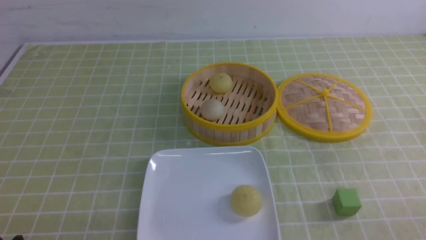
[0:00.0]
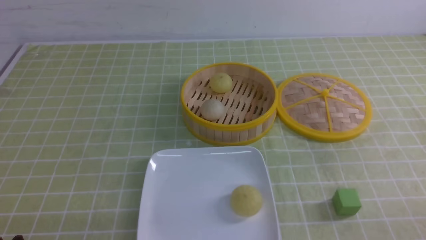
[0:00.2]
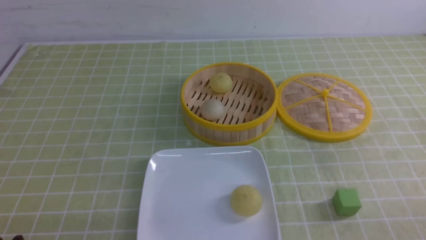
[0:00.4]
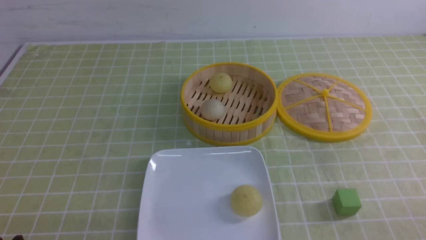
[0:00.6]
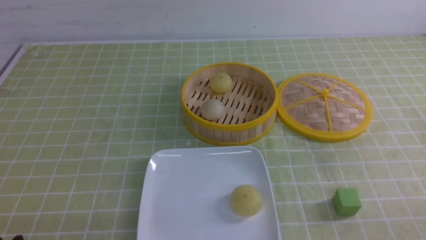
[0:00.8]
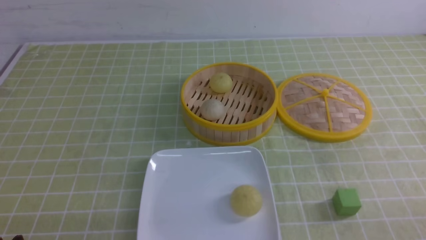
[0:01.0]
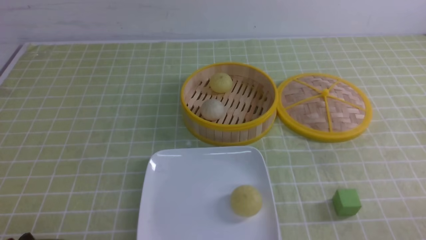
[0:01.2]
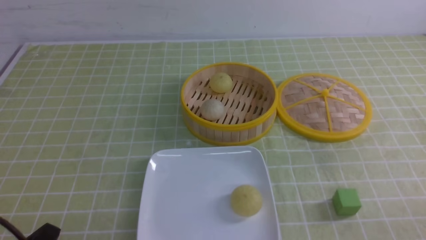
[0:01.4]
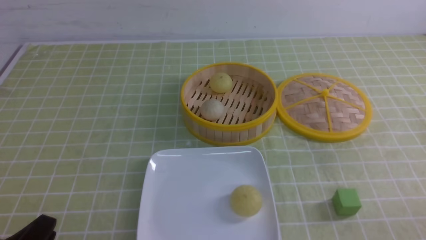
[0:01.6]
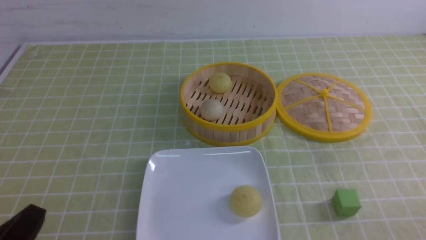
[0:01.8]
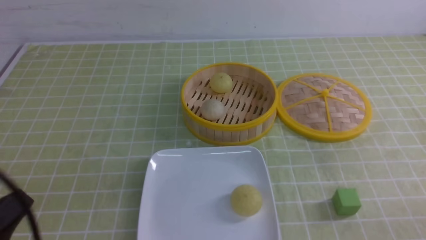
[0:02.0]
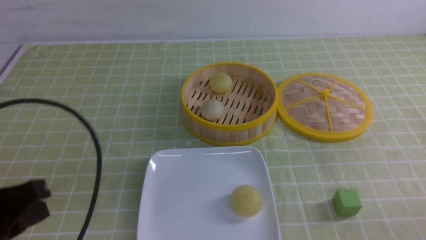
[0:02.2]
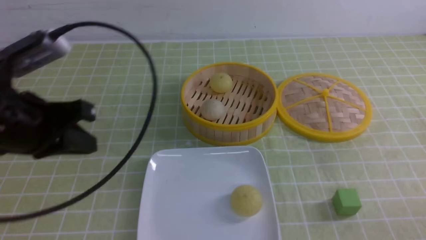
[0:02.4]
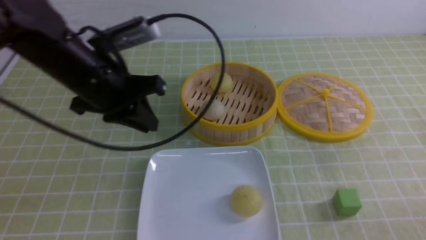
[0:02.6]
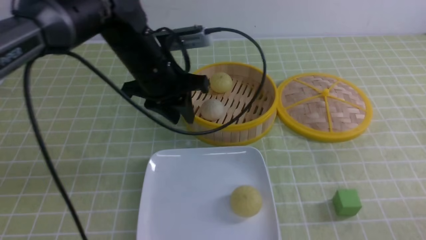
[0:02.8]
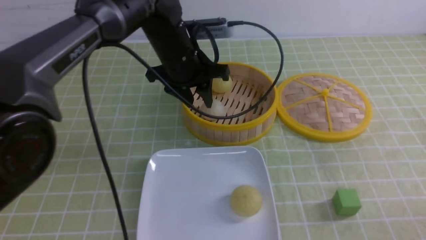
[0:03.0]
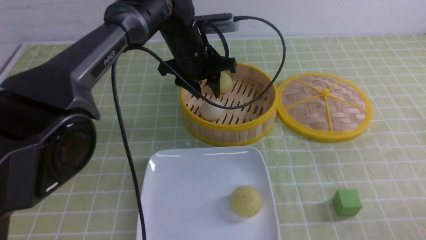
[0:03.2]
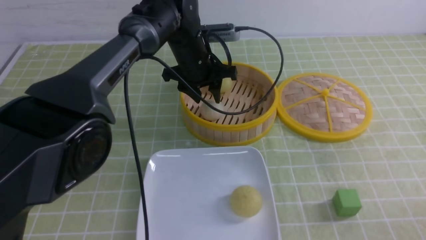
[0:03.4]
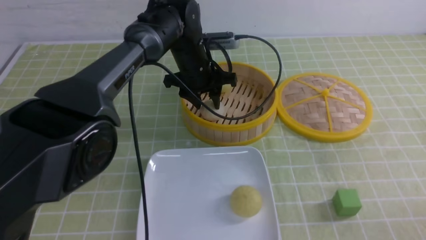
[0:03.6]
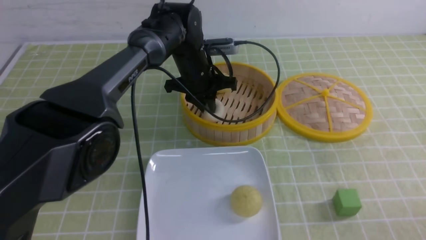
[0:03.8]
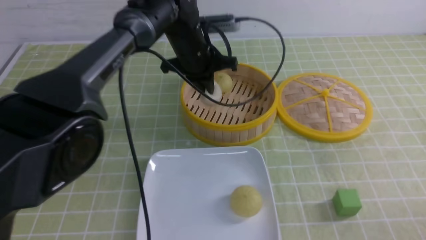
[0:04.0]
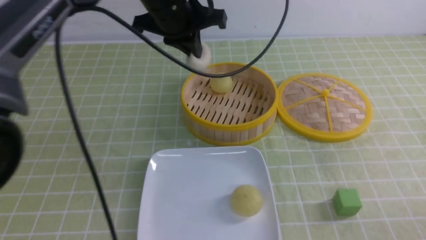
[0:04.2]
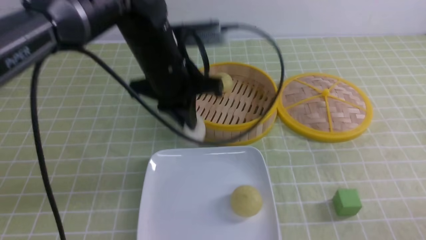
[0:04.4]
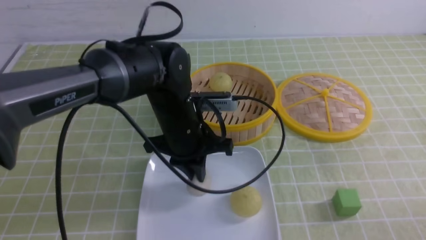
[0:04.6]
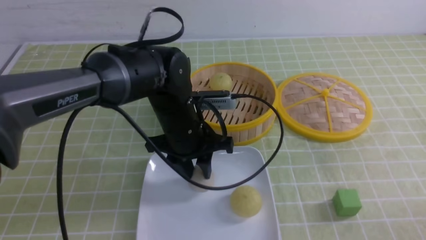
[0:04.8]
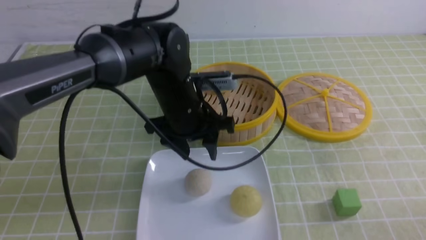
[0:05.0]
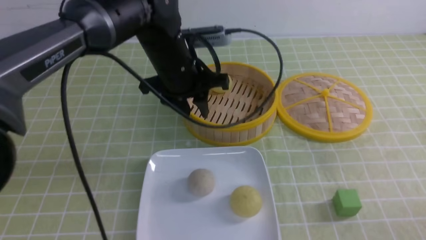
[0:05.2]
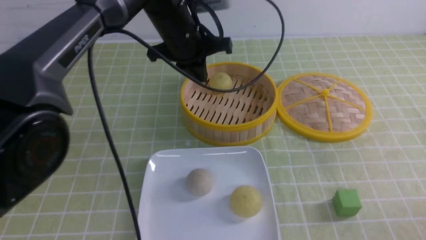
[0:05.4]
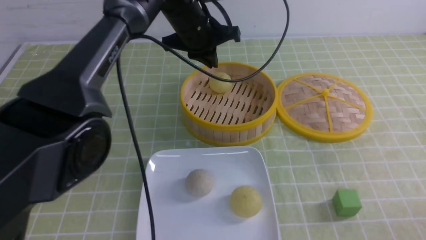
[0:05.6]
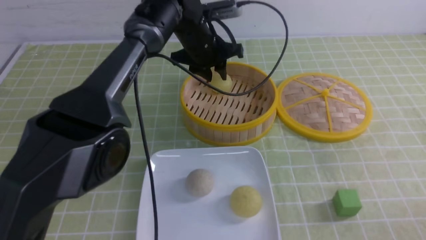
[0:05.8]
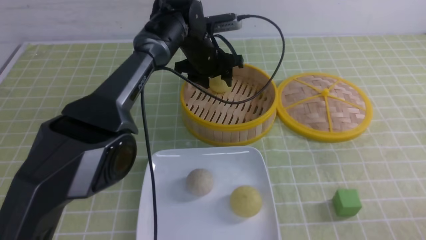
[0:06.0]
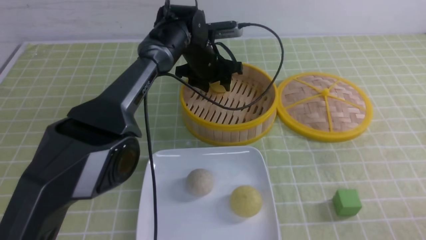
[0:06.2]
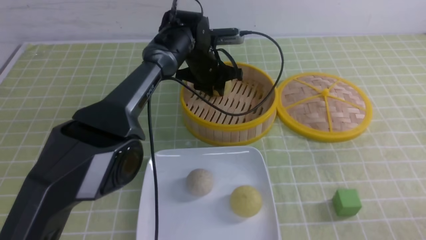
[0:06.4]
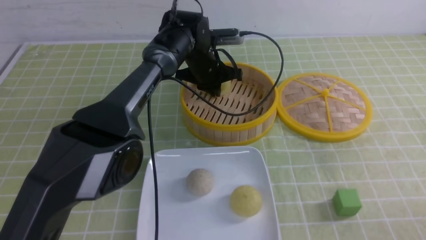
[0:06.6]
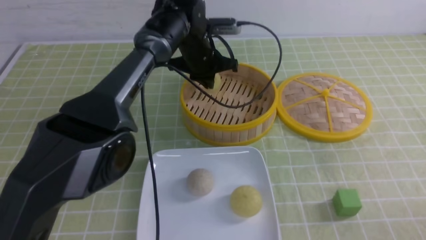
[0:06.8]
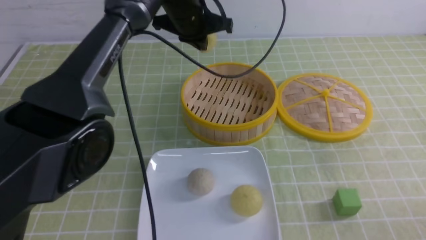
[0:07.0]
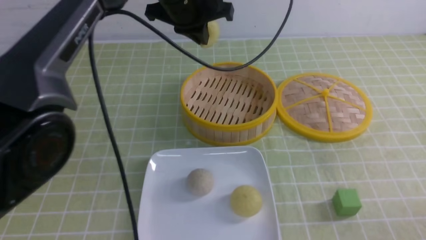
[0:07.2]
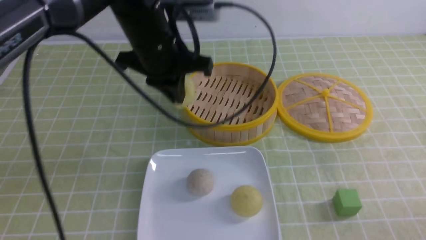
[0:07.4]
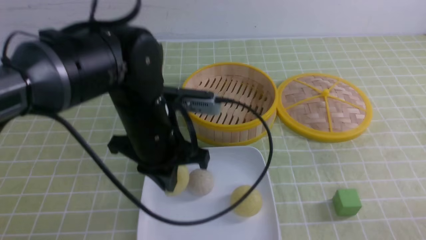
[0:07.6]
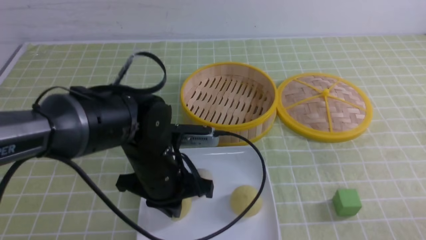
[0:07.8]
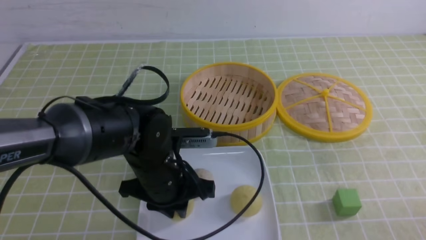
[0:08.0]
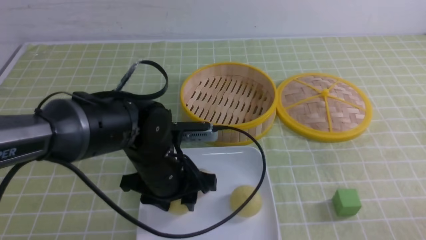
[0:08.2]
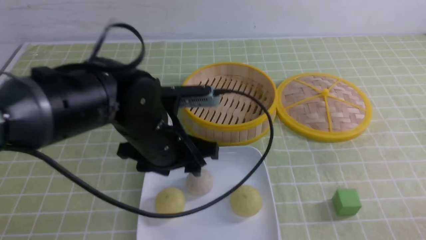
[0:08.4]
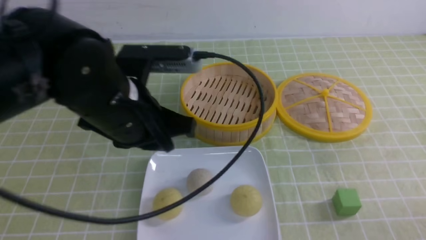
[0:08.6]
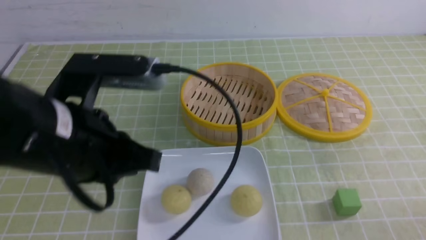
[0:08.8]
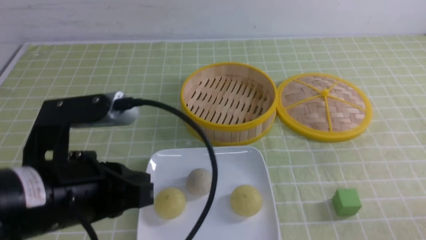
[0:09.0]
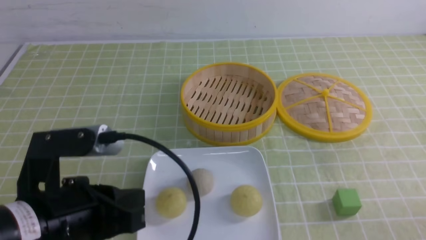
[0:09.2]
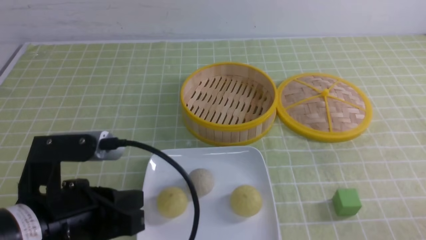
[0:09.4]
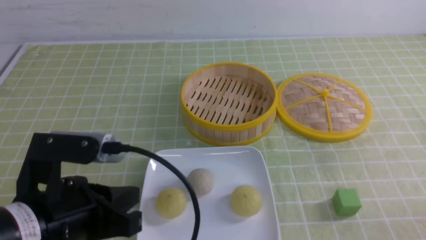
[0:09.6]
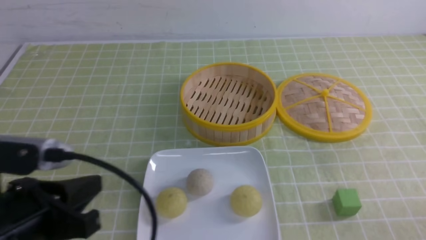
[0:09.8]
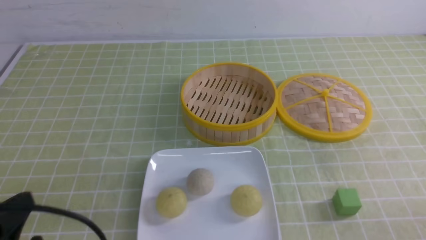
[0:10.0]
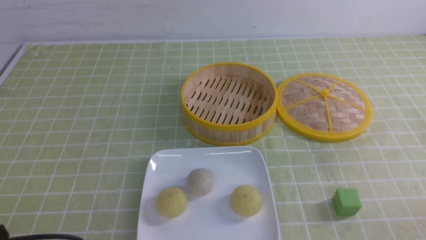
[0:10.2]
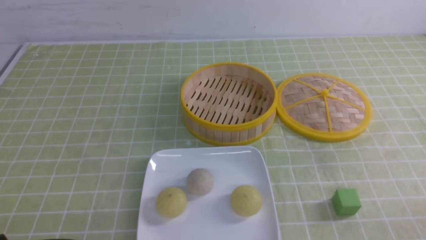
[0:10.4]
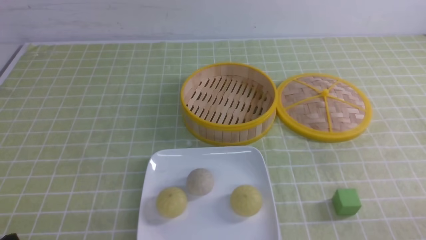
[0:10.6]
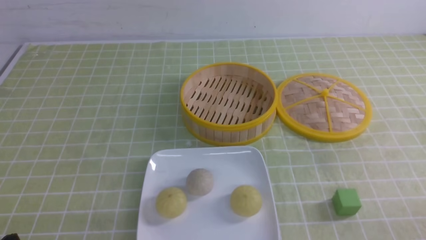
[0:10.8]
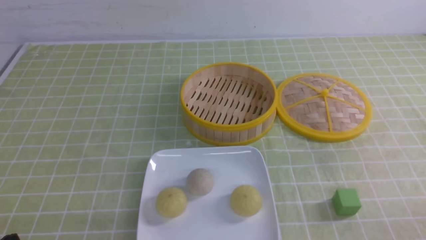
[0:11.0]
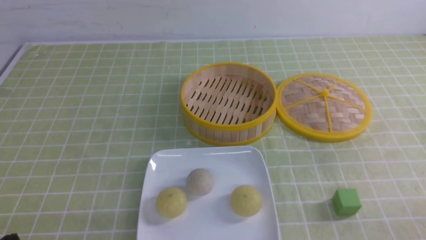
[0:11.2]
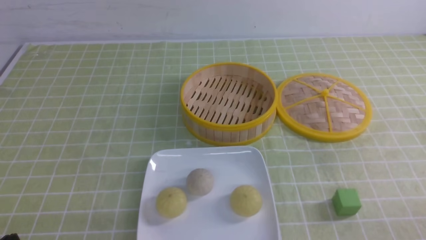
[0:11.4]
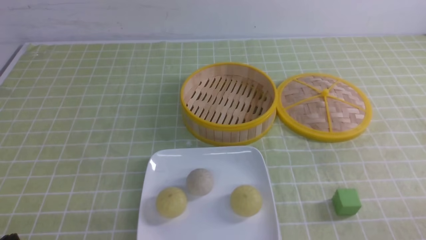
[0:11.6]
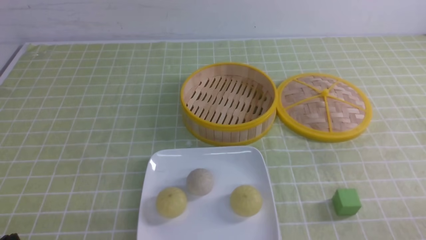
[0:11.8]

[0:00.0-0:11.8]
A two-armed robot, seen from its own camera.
Step, 0.0 to 3.8 s: use the left arm to grab the steamed stuffed bun that is closest to it.
Step, 4.0 to 4.8 s: use the left arm to put the steamed stuffed bun into the plate.
Step, 5.0 to 6.6 s: use the left arm to grab the steamed stuffed bun that is closest to it.
Step, 6.8 to 8.2 s: use the left arm to put the steamed stuffed bun into the plate.
1.4 to 3.0 s: The left gripper is displaced forward and to the right by some 40 cm, and closes and opens again.
3.0 to 4.4 s: The left gripper goes roughly 5 cm backward, and closes its fingers.
4.4 to 6.0 s: The left gripper heads forward and downward, covering about 15 cm, and opens up.
6.0 to 7.4 s: The left gripper moves backward and upward, roughly 15 cm, and closes.
7.4 to 8.8 s: The left gripper heads backward and to the left, covering about 20 cm, and opens, then closes once more.
8.8 to 10.4 s: The left gripper heads downward, to the left and backward, covering about 25 cm.
10.4 to 11.8 s: Both grippers stay put.

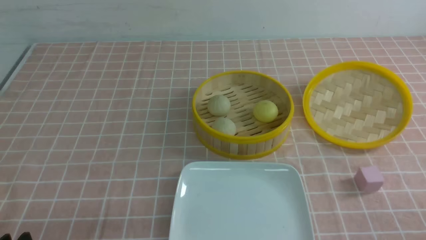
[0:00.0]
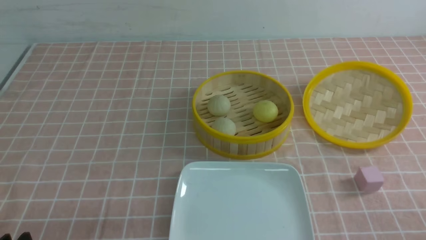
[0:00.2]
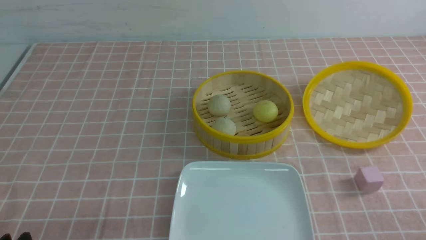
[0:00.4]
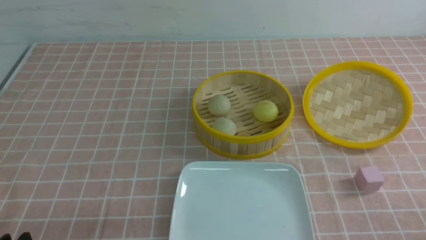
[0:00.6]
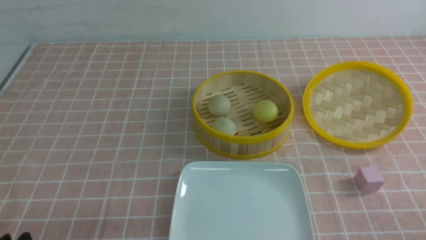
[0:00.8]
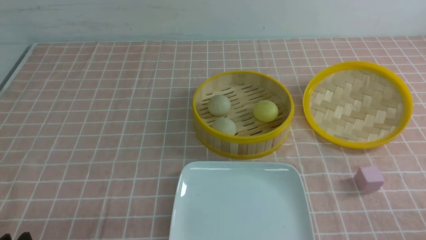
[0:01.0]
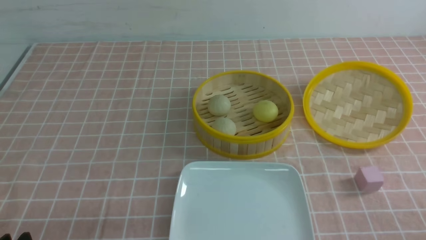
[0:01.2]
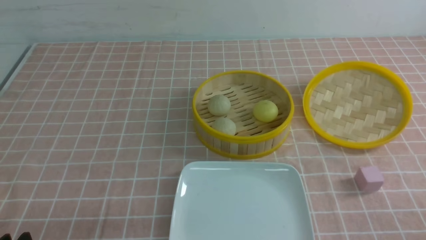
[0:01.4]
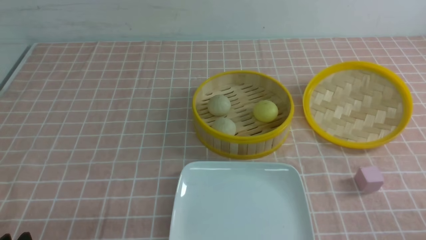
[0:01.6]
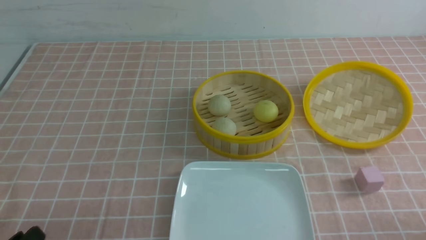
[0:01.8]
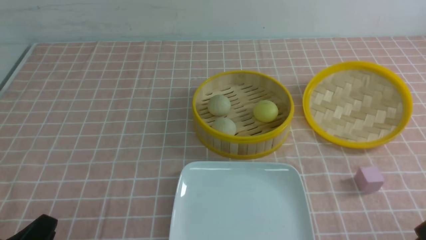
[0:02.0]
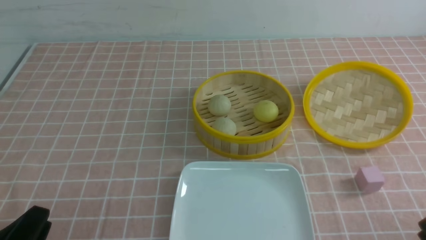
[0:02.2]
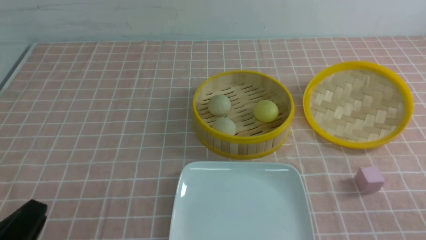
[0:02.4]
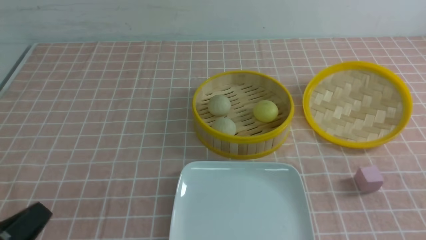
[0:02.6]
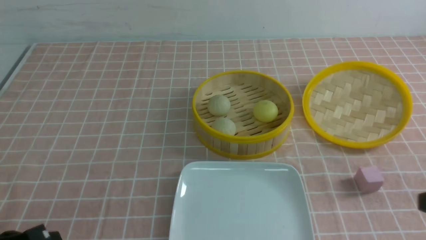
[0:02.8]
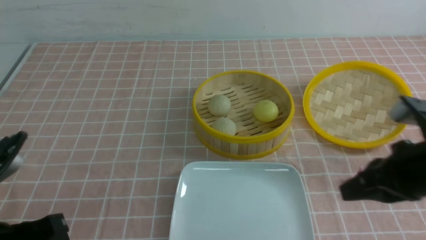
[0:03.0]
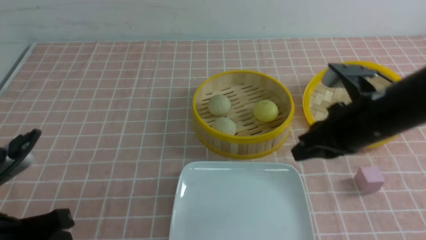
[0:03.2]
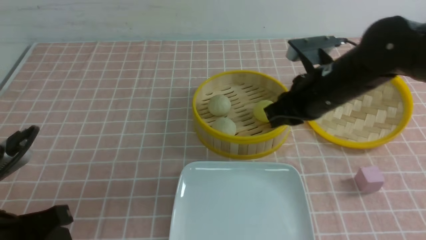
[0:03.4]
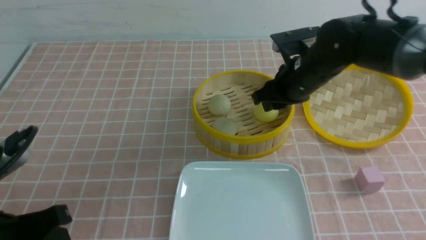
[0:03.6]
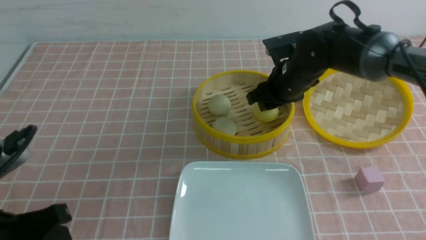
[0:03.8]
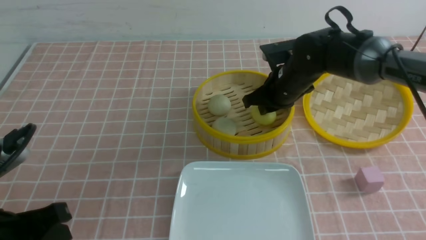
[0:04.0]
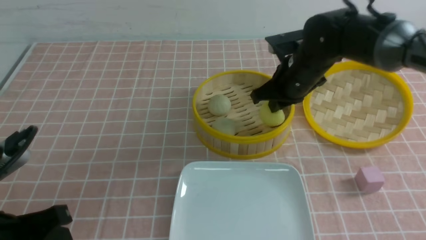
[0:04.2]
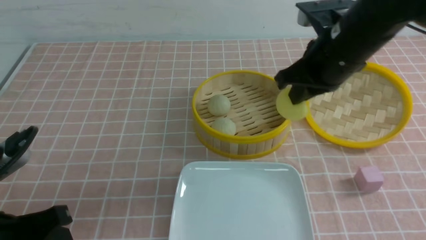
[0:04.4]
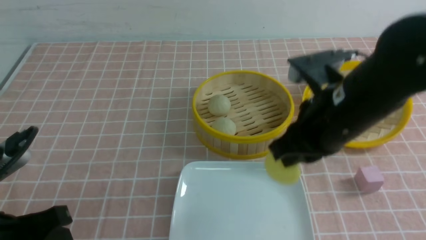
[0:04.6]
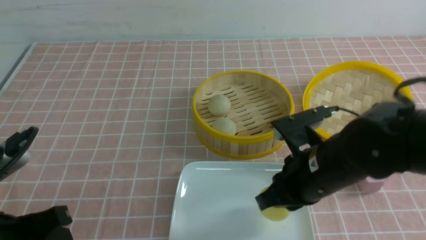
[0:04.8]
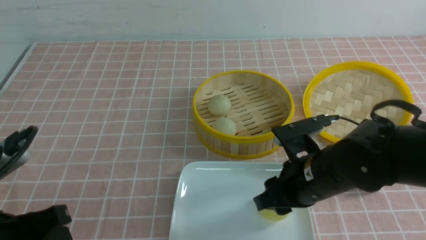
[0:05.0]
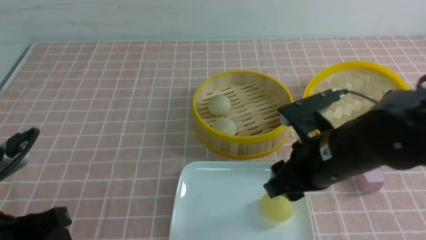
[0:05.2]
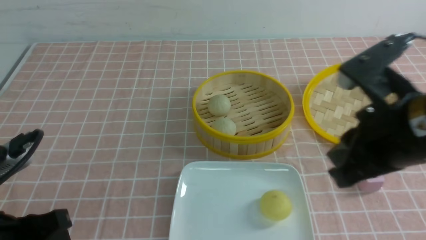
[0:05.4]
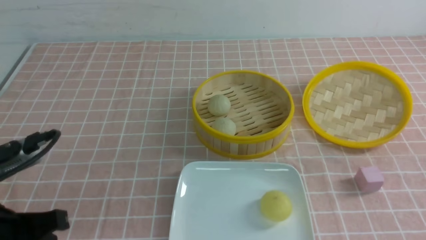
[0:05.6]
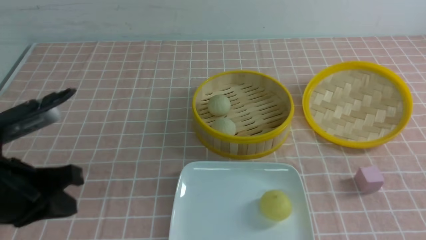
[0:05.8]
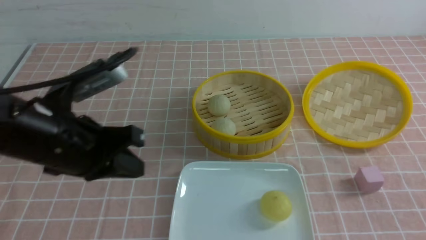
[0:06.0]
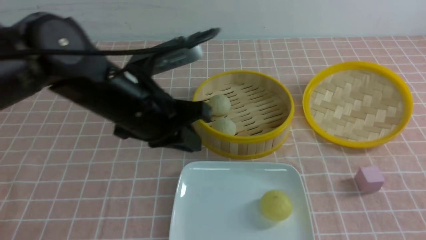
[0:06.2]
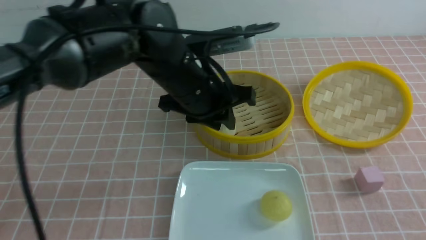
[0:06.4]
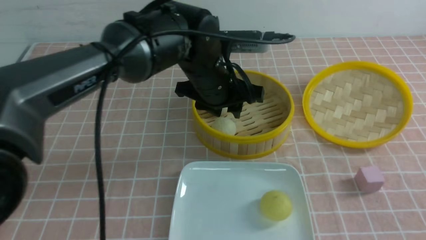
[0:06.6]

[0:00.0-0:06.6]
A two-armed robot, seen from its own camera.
Step, 0.0 to 4.0 s: use the right arm to grab the steamed stuffed bun that is closest to it.
Step, 4.2 to 5.0 s: use the right arm to put the steamed stuffed bun into the plate.
1.6 to 3.2 s: The left gripper travels upward and forward by about 10 cm, and closes up; the right gripper goes about 30 cm forward, to the left and upward, and closes.
3.2 to 5.0 s: The right gripper is displaced downward and to the left by approximately 10 cm, travels forward and back again, about 15 cm each way, and opens up. The left gripper opens its fingers.
5.0 to 6.6 s: The left gripper is displaced forward and to the right by some 35 cm, and opens its fingers, while the right gripper heads backward, to the right and upward, covering some 30 cm, and closes up.
